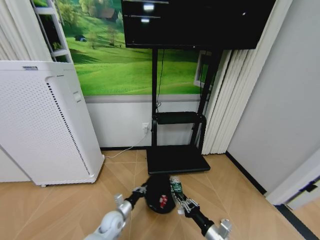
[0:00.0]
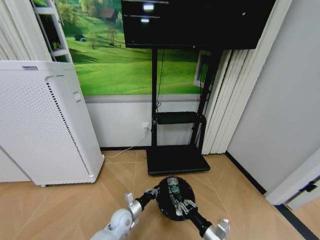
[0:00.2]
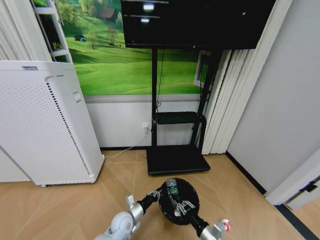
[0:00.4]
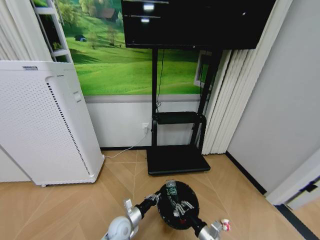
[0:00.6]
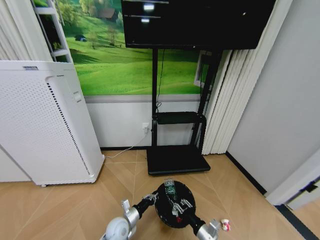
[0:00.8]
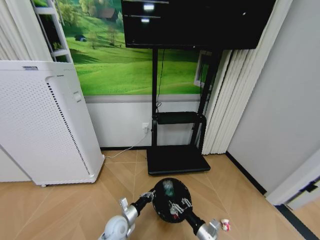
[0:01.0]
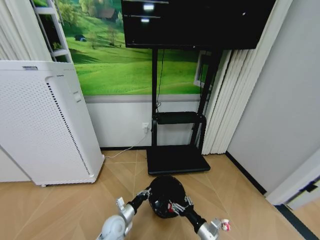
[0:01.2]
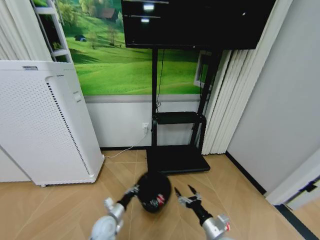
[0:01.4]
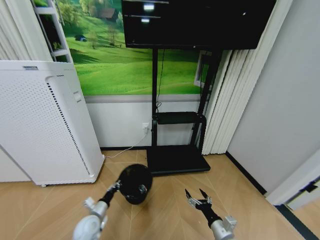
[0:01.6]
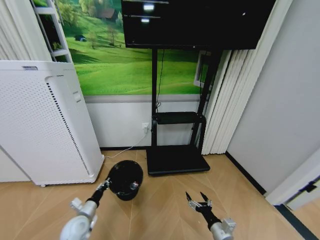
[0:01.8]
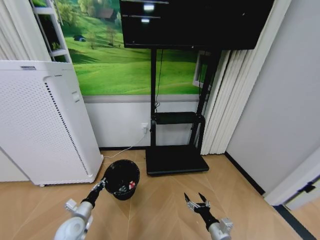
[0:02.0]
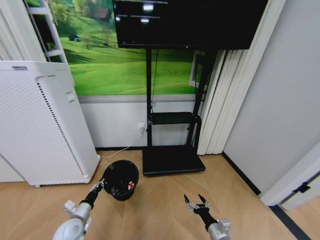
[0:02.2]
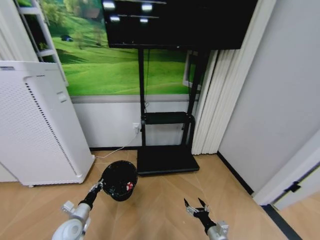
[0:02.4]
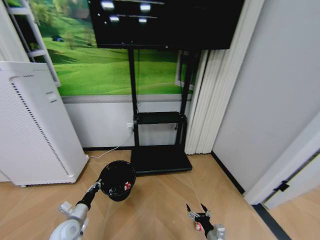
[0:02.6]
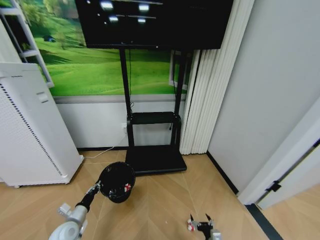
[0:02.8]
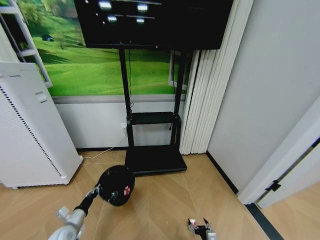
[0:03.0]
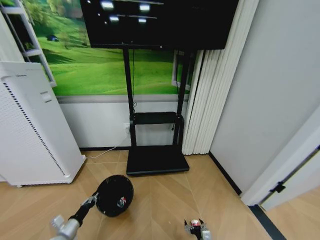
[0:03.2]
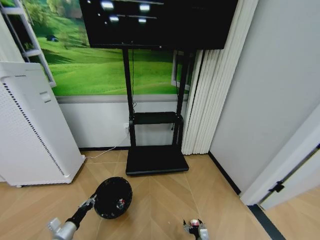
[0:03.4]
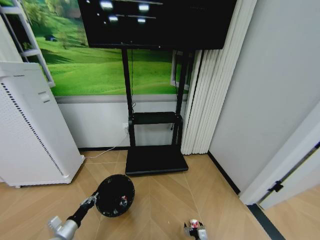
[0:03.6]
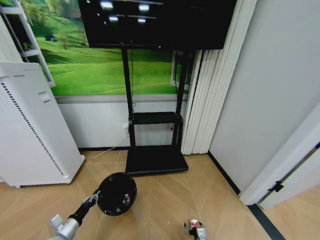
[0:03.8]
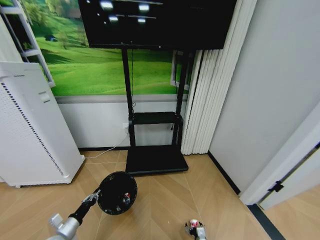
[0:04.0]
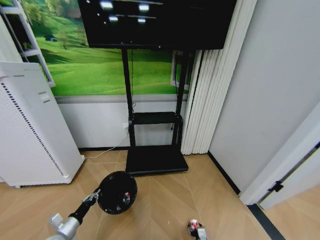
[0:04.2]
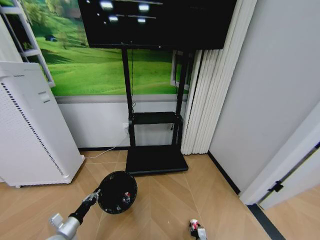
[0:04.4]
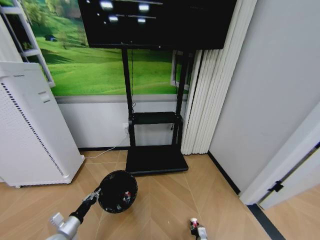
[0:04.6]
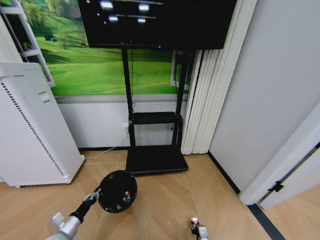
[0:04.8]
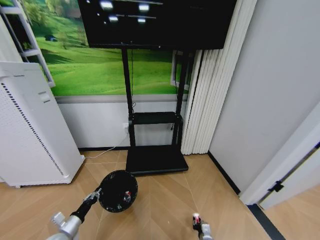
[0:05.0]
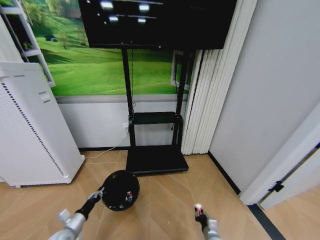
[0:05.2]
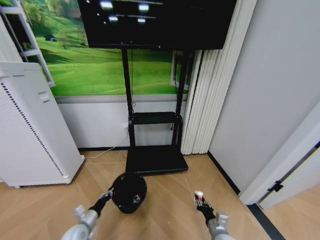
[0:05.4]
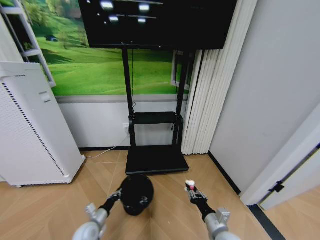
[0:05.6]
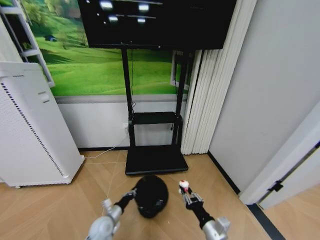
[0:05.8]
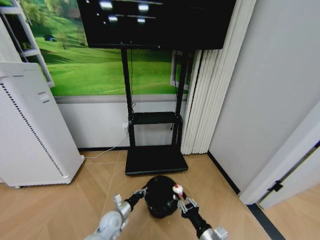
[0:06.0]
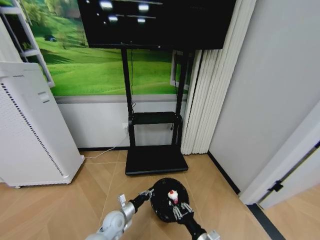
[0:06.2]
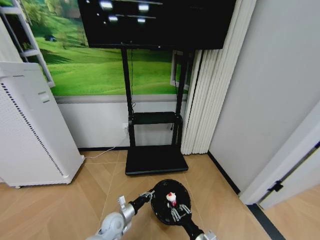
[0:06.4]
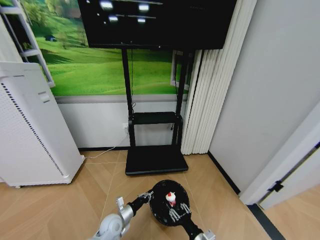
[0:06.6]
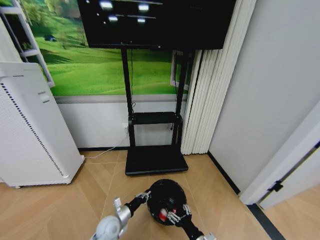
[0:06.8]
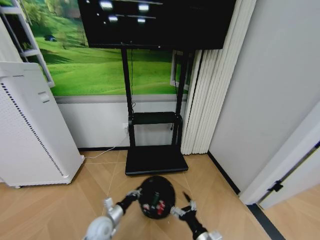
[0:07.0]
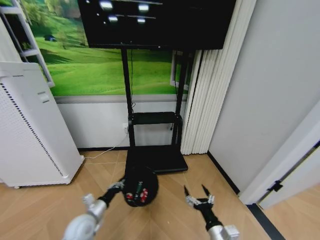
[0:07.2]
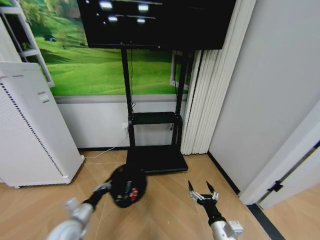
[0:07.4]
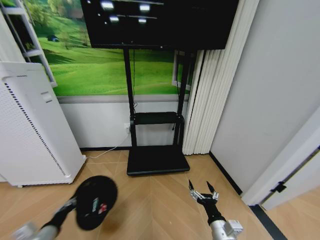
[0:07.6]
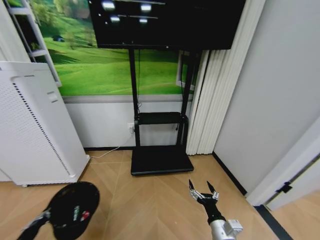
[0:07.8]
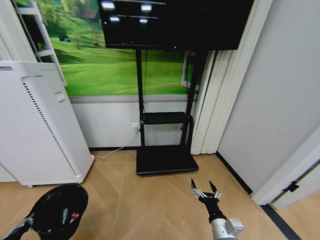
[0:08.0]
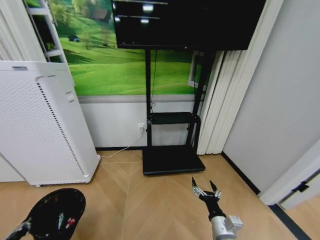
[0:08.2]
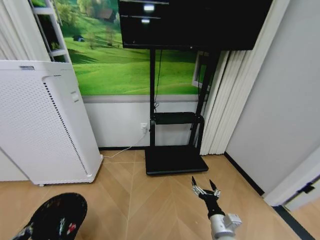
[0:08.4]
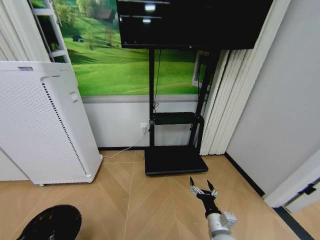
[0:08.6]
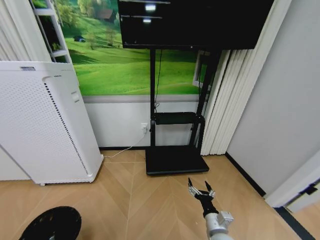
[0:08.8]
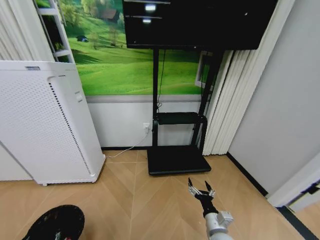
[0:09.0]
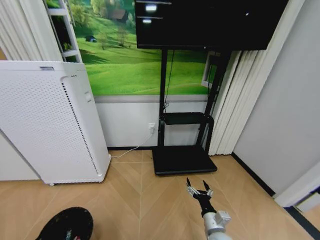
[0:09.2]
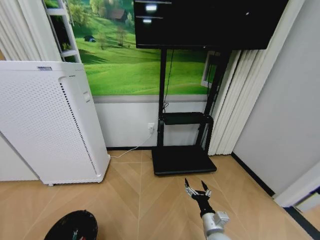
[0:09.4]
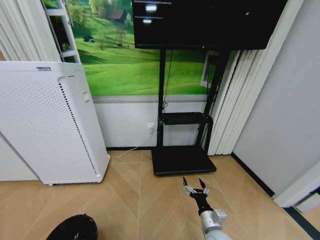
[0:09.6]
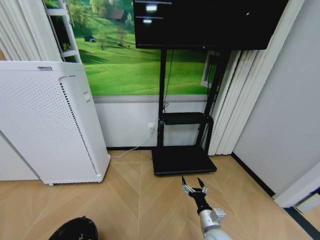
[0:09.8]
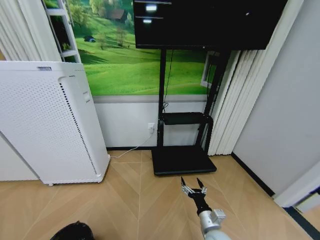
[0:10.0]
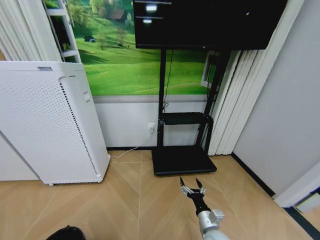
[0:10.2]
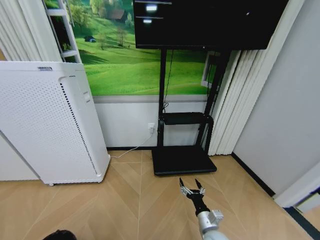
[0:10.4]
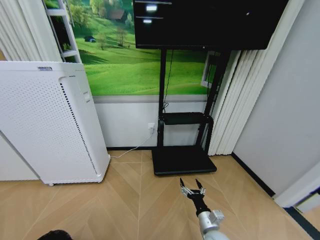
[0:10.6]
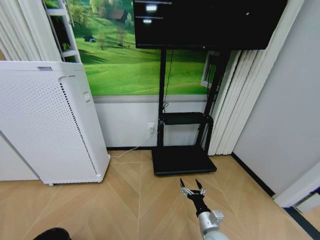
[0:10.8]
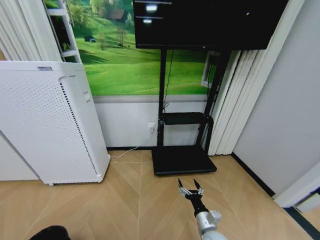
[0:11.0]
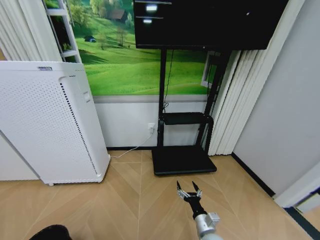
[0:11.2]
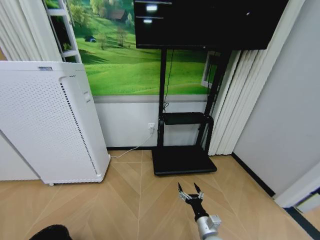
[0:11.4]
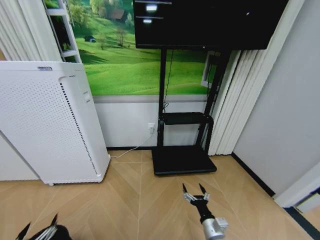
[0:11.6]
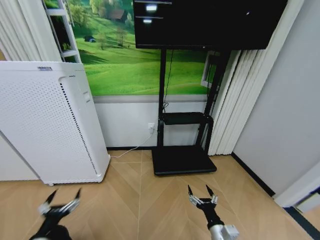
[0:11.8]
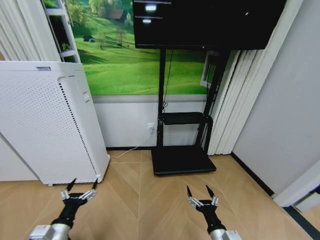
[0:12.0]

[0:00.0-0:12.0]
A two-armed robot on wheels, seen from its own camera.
Task of the whole recording: Pick up the trash bin and place the garbage on the floor into it.
0:00.0 to 0:01.6: The right gripper opens. The left gripper heads to the left, covering roughly 10 cm.
0:01.6 to 0:03.0: The right gripper is displaced downward by roughly 15 cm. The left gripper is displaced to the left by approximately 10 cm.
0:03.0 to 0:04.4: The right gripper is displaced downward by approximately 5 cm, and closes its fingers.
0:04.4 to 0:06.0: The right gripper goes approximately 25 cm upward. Meanwhile the left gripper moves to the right and forward, some 20 cm.
0:06.0 to 0:07.6: The left gripper heads to the left, upward and backward, covering roughly 25 cm, while the right gripper opens its fingers.
0:07.6 to 0:09.0: The left gripper travels backward and to the left by approximately 15 cm.
0:09.0 to 0:10.4: The left gripper travels backward and downward by some 15 cm.
0:10.4 to 0:12.0: The left gripper travels forward, upward and to the right by about 30 cm, and opens. Meanwhile the right gripper is displaced backward by about 5 cm.

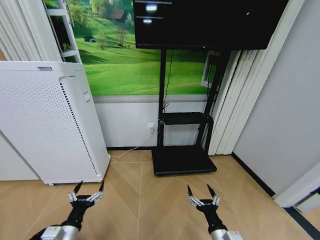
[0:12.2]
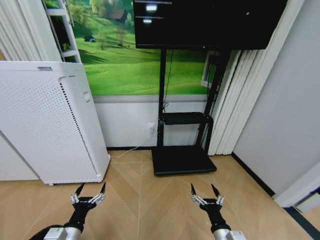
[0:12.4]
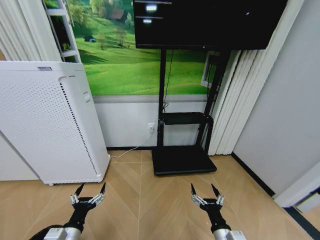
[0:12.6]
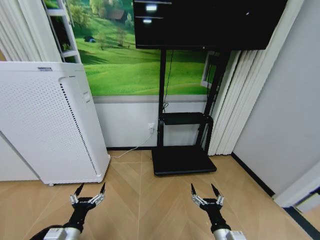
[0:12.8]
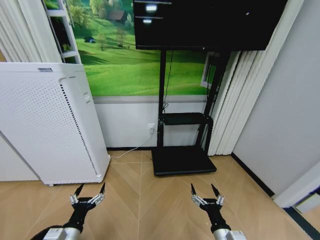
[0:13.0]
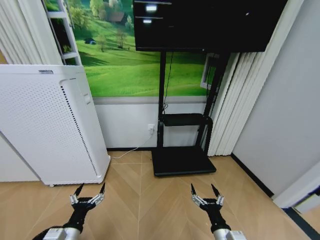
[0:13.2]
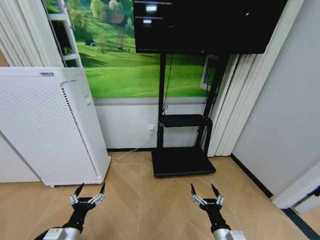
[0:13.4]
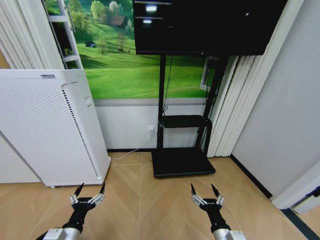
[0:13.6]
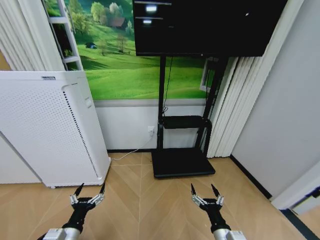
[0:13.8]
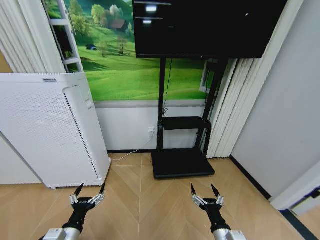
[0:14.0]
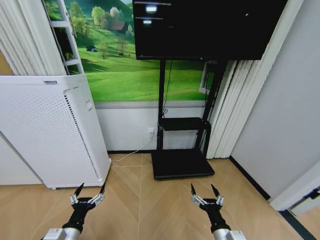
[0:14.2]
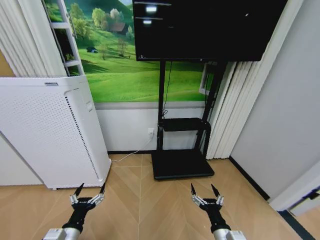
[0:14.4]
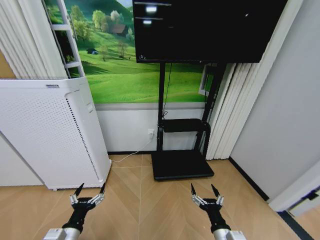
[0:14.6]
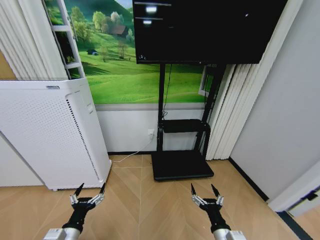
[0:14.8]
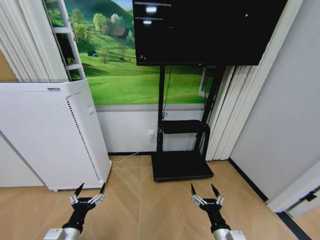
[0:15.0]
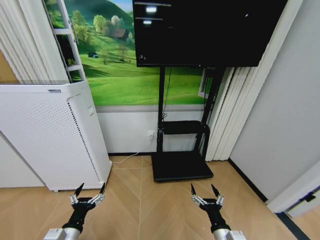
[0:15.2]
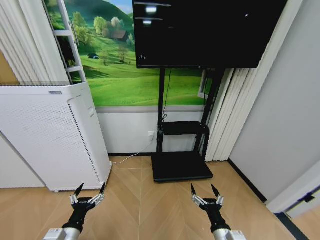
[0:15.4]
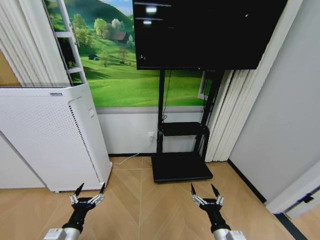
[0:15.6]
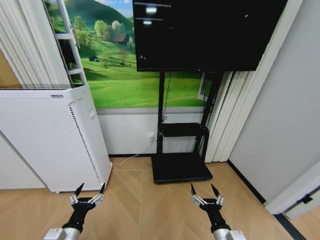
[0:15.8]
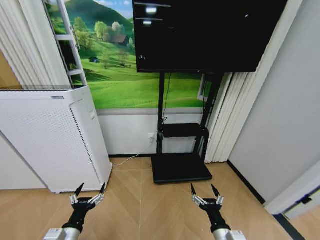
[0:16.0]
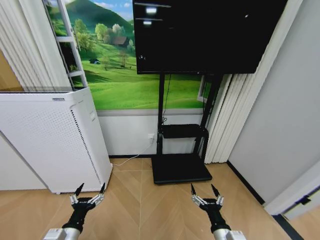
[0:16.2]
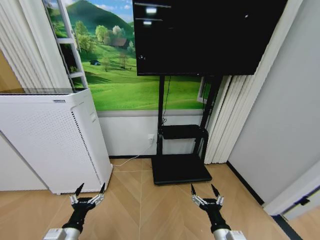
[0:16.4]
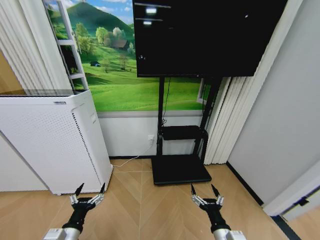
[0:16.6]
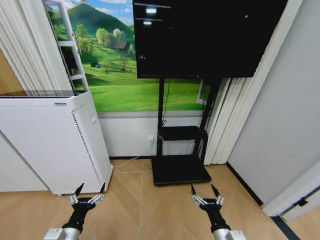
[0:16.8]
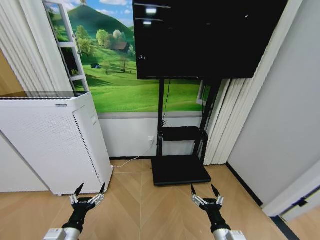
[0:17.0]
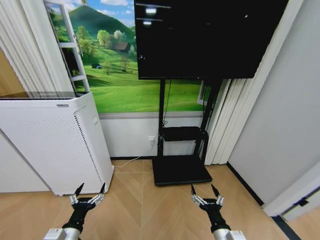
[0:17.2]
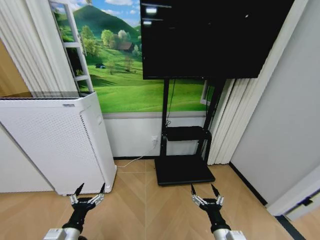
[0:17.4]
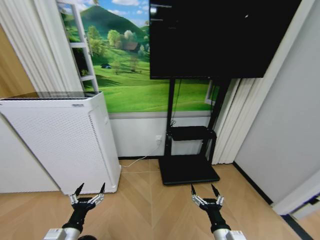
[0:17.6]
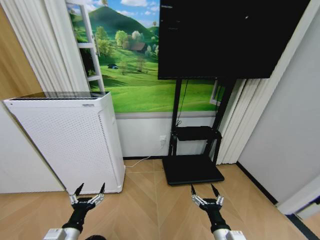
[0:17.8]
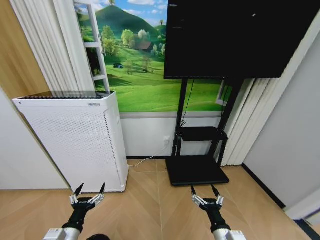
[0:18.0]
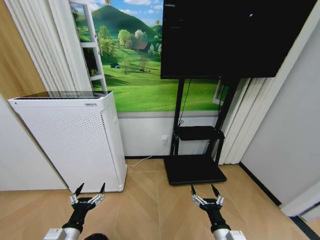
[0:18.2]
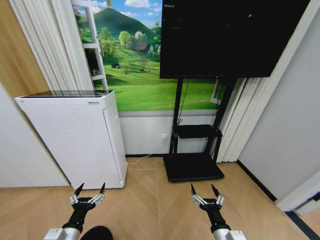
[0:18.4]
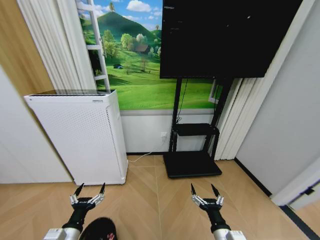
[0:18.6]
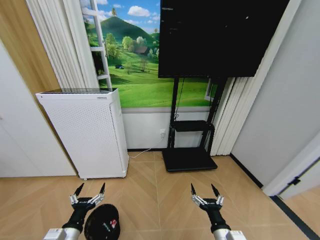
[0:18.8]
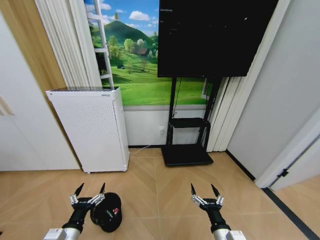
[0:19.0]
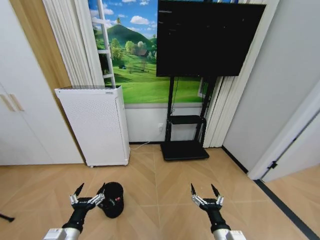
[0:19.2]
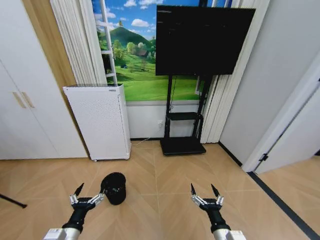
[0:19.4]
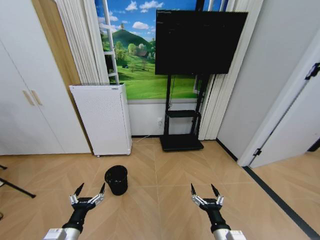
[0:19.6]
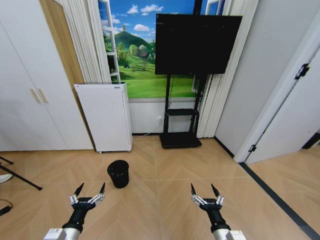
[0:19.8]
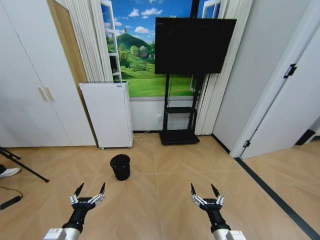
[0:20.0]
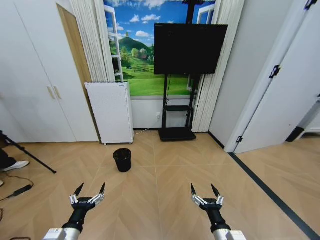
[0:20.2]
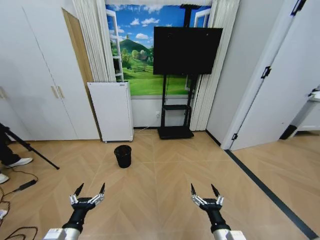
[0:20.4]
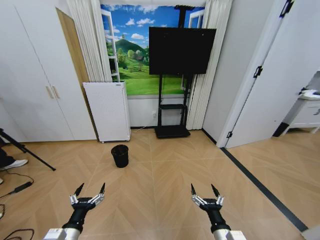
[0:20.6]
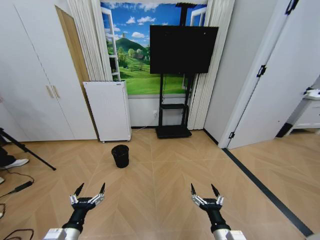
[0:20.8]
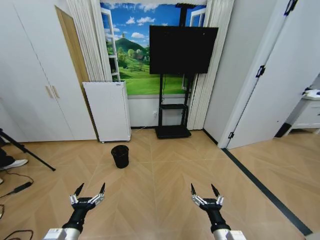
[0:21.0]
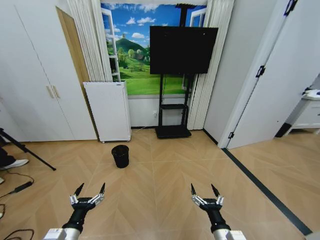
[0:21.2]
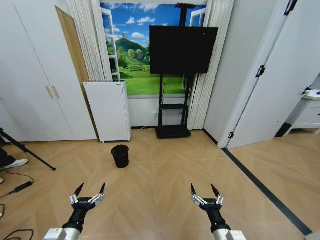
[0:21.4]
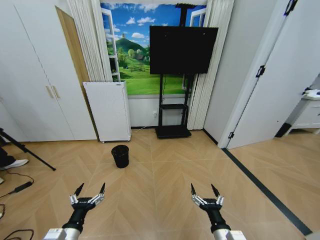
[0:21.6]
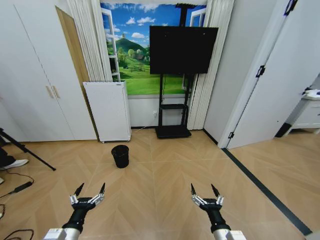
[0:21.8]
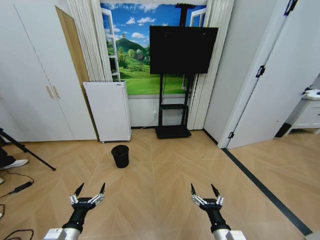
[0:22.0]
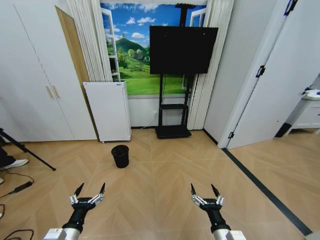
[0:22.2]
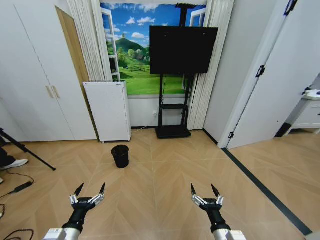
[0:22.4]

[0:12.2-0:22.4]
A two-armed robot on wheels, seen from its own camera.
Task of the whole recording: Pick up the trash bin and place the garbage on the floor into it.
0:12.2 to 0:16.6: The two grippers keep their place.
0:21.0 to 0:22.4: Both grippers stay about where they are.
